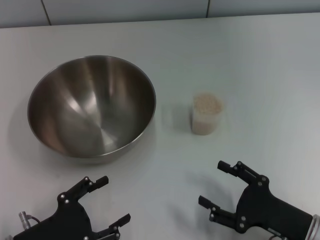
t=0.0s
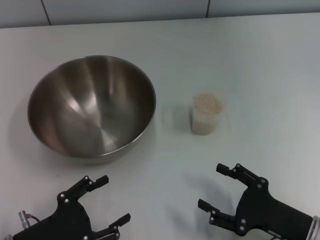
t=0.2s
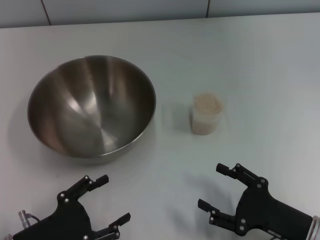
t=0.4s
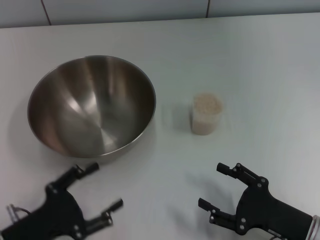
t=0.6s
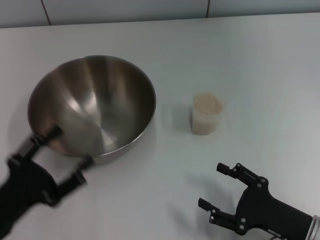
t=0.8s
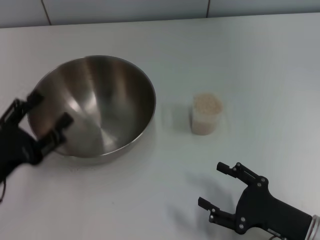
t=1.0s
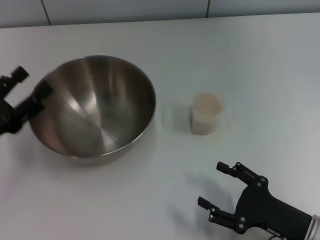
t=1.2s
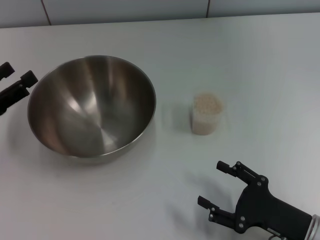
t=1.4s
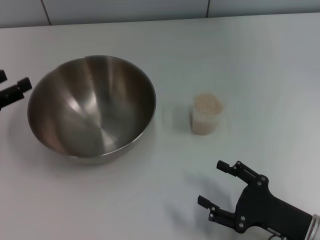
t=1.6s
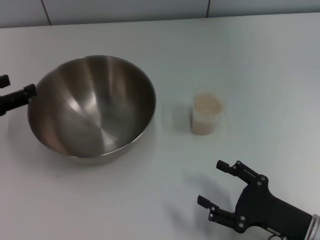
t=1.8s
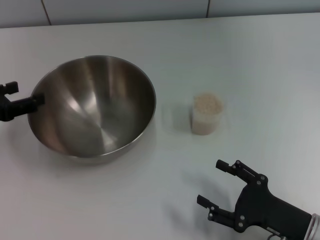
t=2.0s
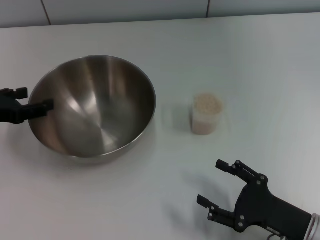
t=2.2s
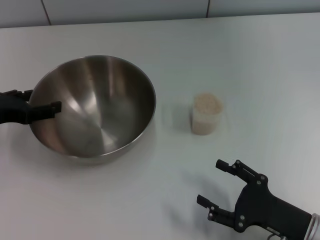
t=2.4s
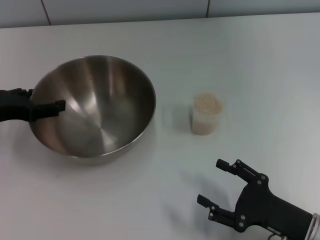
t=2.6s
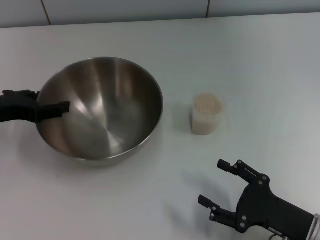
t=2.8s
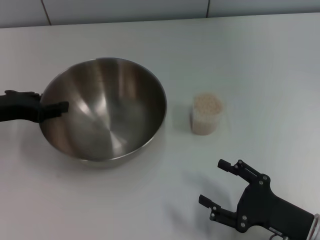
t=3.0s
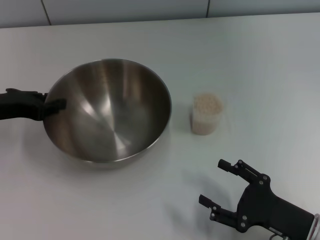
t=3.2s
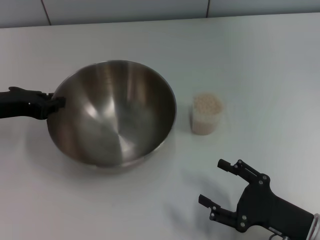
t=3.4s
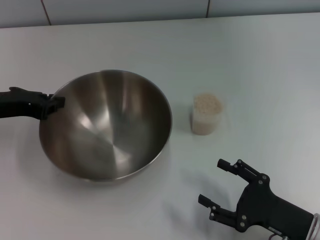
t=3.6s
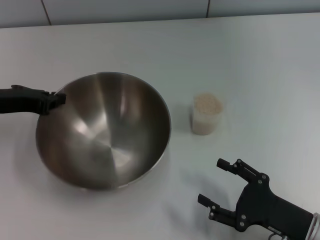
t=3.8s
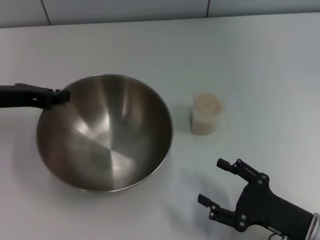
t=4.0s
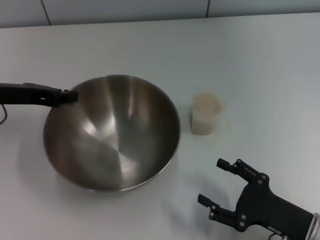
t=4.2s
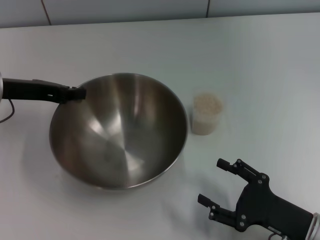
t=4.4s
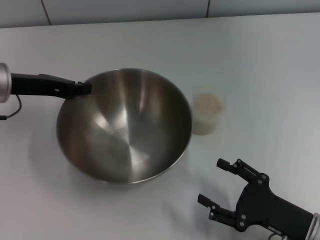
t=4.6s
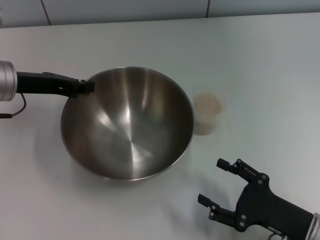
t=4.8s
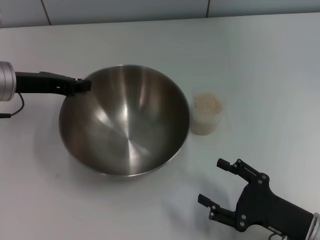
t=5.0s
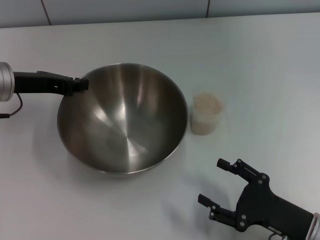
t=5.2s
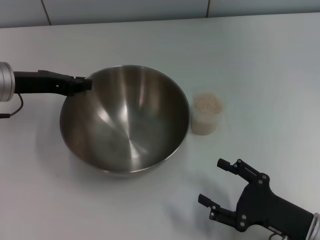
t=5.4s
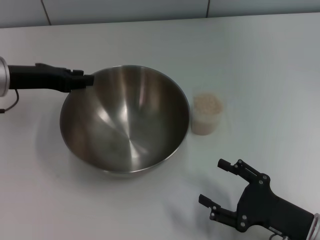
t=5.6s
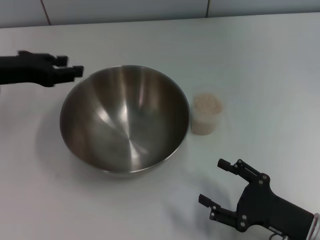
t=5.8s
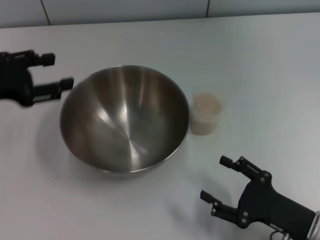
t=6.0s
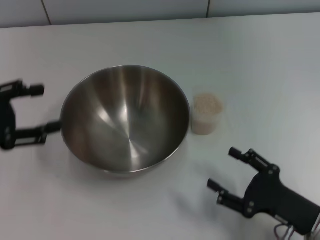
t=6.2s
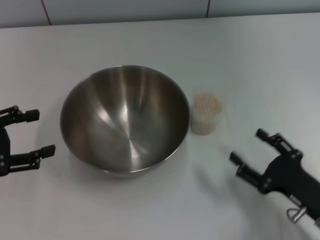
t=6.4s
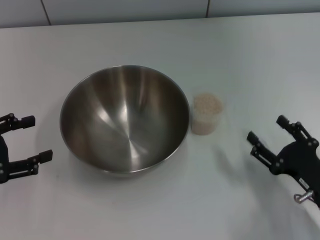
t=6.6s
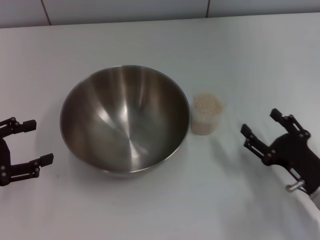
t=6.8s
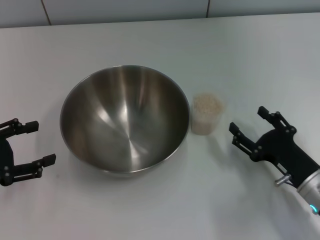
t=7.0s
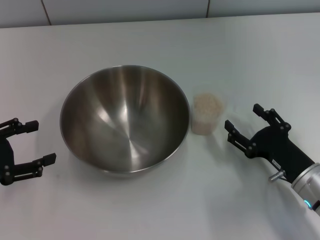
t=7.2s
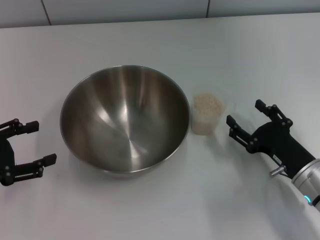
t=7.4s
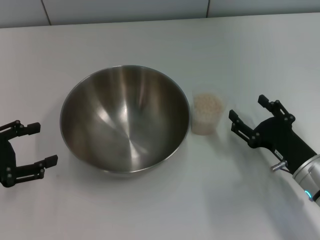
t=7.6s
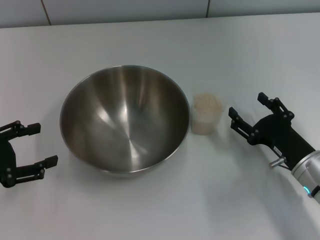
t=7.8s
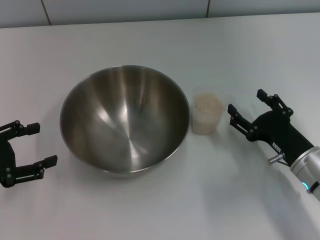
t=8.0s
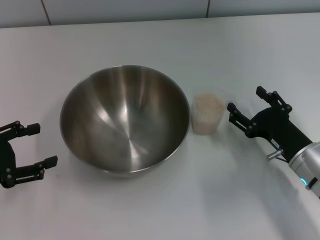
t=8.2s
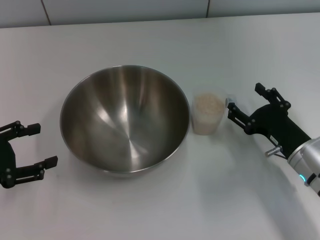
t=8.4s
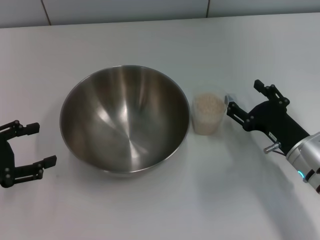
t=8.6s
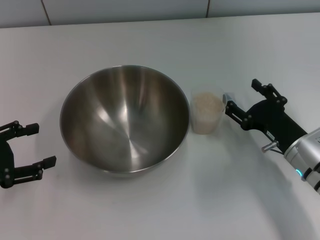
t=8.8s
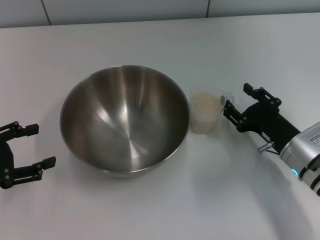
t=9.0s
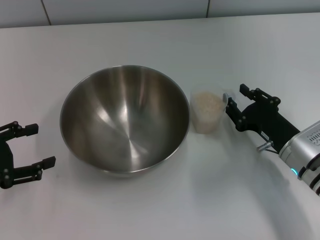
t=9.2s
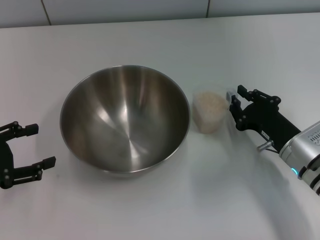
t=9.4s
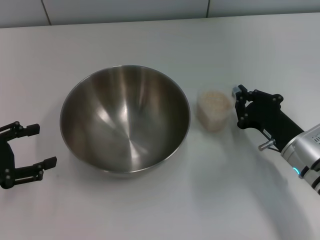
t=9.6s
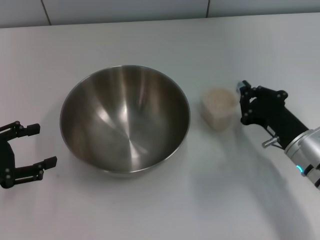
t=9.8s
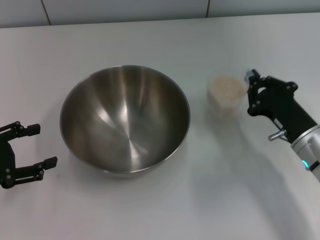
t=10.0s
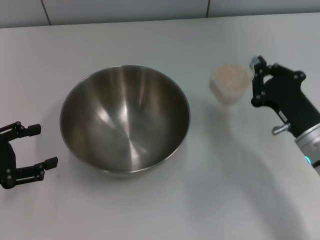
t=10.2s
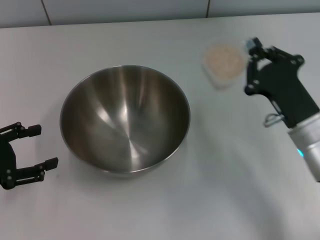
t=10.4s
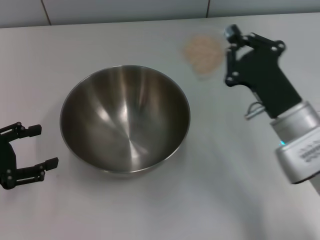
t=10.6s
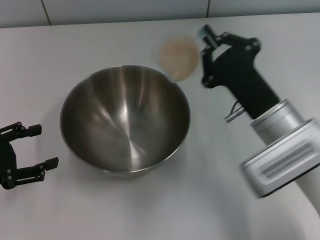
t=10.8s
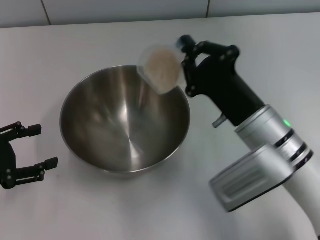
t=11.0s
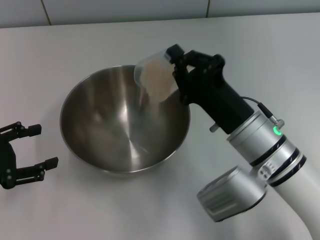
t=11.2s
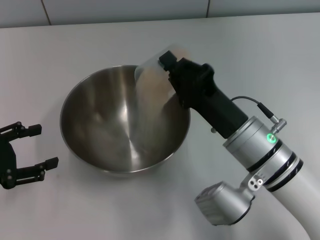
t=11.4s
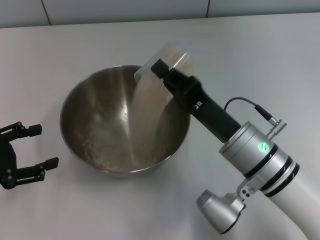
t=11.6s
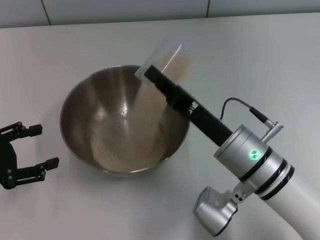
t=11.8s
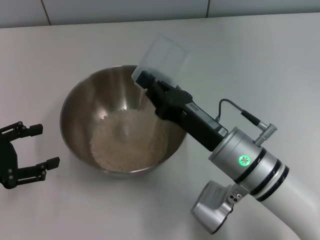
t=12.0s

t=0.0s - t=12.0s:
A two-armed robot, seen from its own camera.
Task of the whole recording: Place the bowl in the middle of the table with one hand and pour the rice from the grain cup into it with the other hand.
Step, t=0.0s - t=3.8s: Pick up the bowl with the left gripper.
Step, t=4.0s - t=5.8s: Place the bowl in the center of view with the left gripper.
Step, t=6.0s - t=10.2s: Pick up the cup with rice in it with the right gripper.
t=0.0s - t=1.6s: The left gripper is displaced forward, upward and to the left by about 20 cm.
t=1.6s - t=3.0s: The left gripper shifts roughly 5 cm to the right.
t=3.0s - t=4.4s: The left gripper ends up roughly 5 cm from where it was, and closes up.
t=4.4s - t=6.0s: The left gripper heads backward, covering roughly 5 cm, and opens.
t=6.0s - t=7.6s: The right gripper heads forward, covering some 10 cm. Meanwhile the left gripper shifts some 10 cm downward and backward, and opens up.
t=7.6s - t=9.0s: The grippers make only small movements.
t=9.0s - t=10.4s: The right gripper is displaced upward by roughly 5 cm, and closes.
t=10.4s - t=12.0s: The right gripper is displaced to the left by approximately 10 cm.

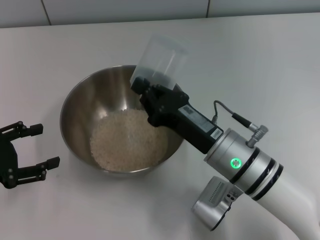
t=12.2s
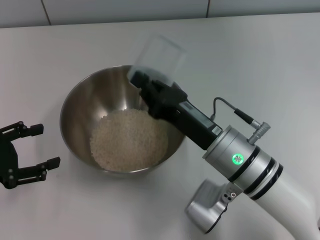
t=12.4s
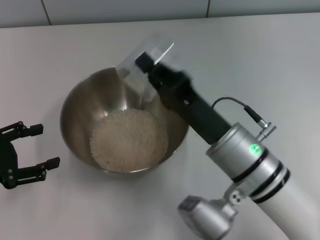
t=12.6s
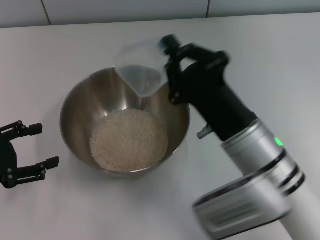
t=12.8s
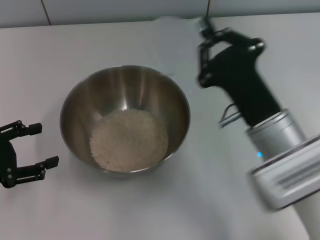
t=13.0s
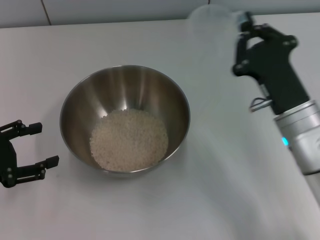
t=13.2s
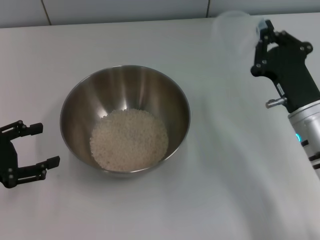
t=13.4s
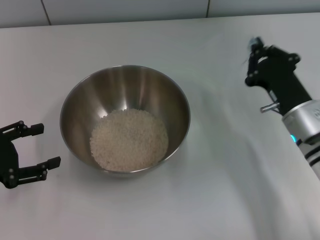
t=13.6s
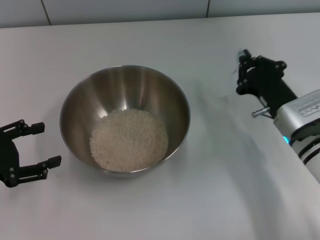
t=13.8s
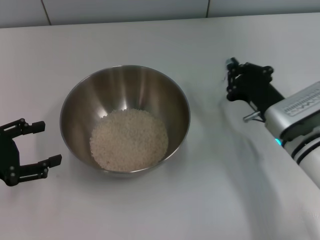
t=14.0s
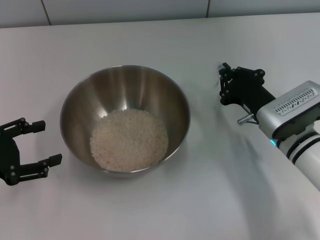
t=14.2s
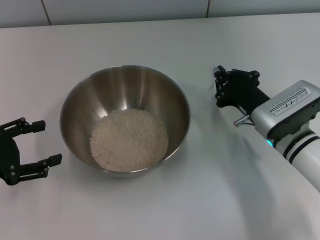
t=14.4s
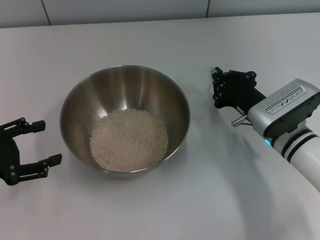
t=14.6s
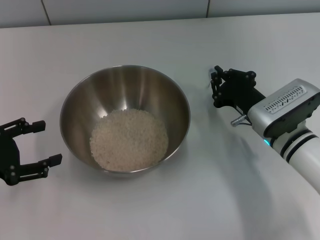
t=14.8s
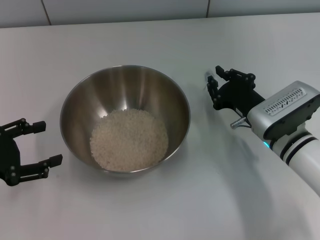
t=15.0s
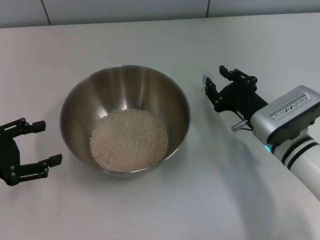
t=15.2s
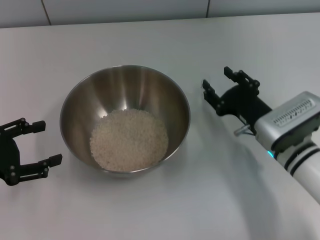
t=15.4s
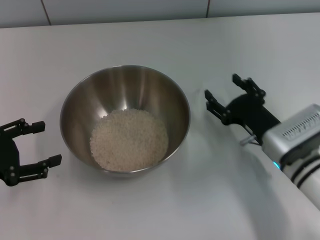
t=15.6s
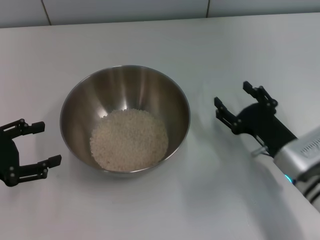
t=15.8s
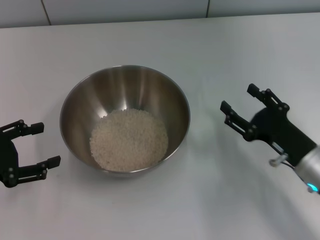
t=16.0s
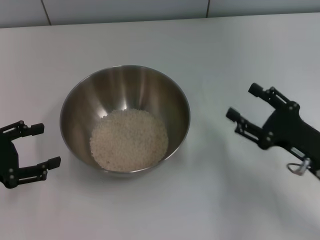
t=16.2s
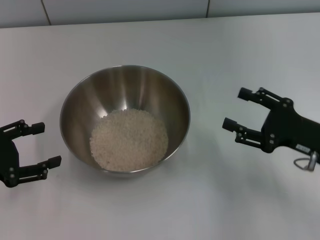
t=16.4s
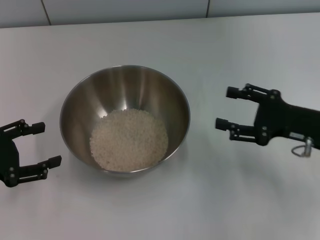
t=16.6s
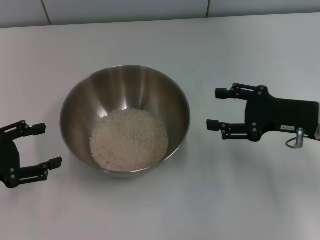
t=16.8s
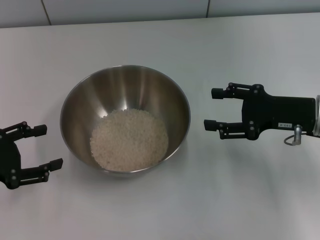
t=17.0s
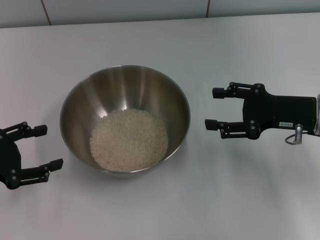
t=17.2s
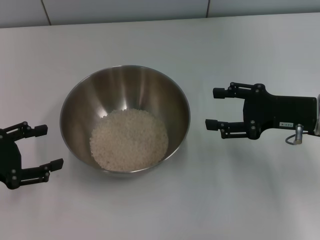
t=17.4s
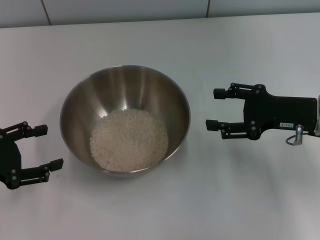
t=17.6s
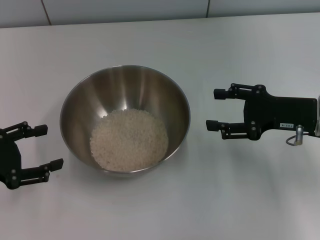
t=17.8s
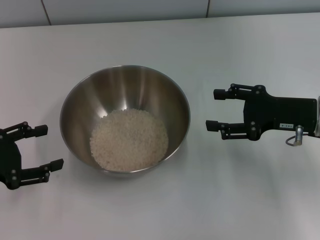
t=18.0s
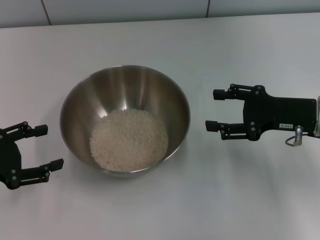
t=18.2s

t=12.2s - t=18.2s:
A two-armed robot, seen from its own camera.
Task of the whole recording: Place the bowl in the middle of the table with one hand and pour the rice from the grain cup into it with the other hand.
Step, t=13.2s - t=15.6s: Place the cup on the table with the right gripper.
t=12.2s - t=13.8s: The right gripper shifts some 10 cm to the right and forward.
t=13.8s - t=15.2s: The grippers stay close to where they were, moving slightly.
t=15.2s - t=16.6s: The right gripper shifts some 10 cm to the right and upward, and opens.
t=16.6s - t=18.2s: The grippers stay close to where they were, moving slightly.

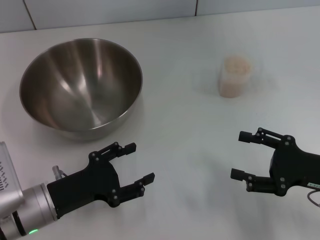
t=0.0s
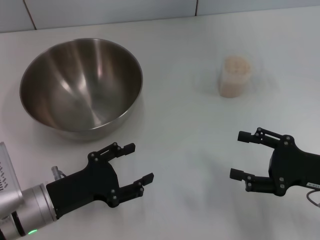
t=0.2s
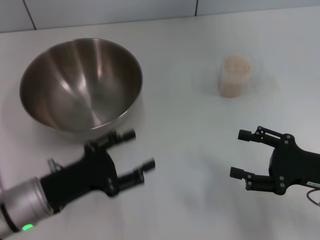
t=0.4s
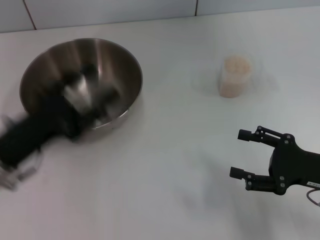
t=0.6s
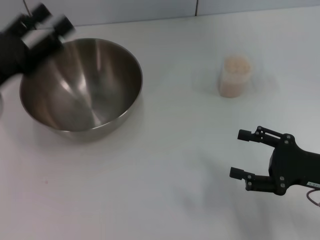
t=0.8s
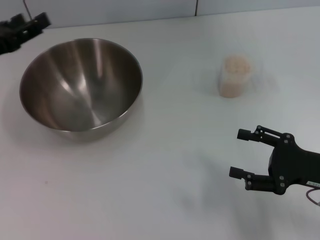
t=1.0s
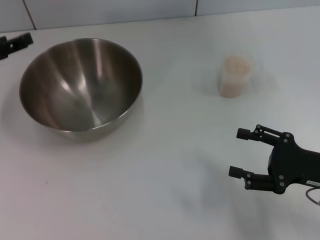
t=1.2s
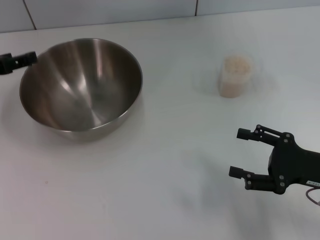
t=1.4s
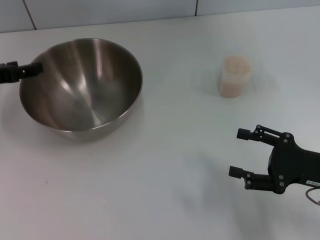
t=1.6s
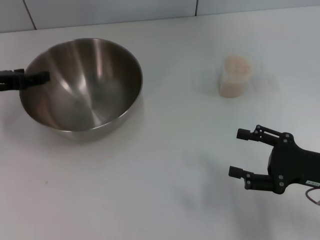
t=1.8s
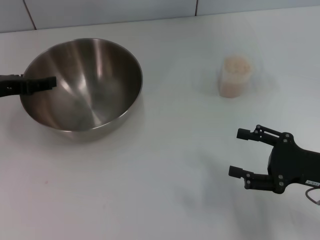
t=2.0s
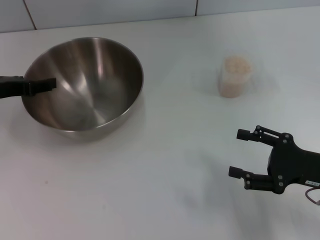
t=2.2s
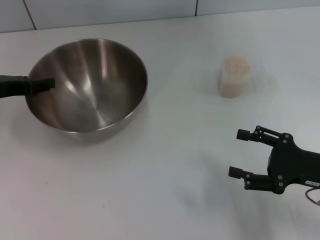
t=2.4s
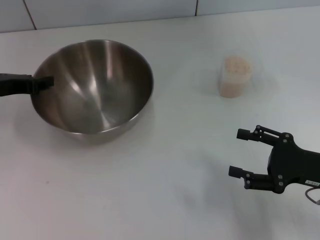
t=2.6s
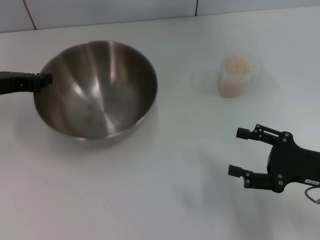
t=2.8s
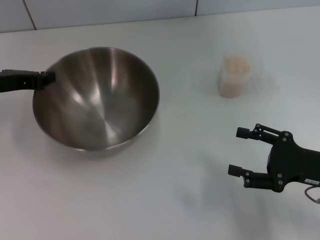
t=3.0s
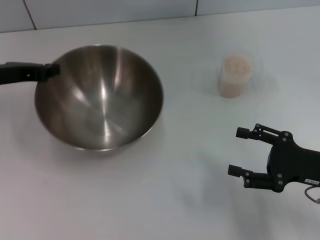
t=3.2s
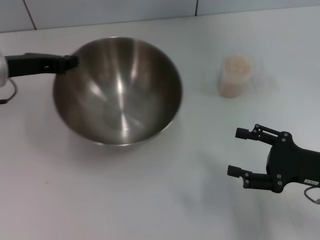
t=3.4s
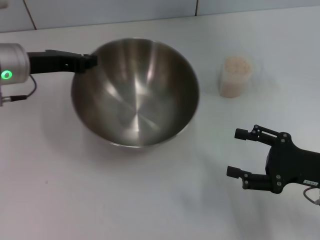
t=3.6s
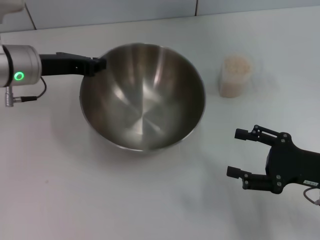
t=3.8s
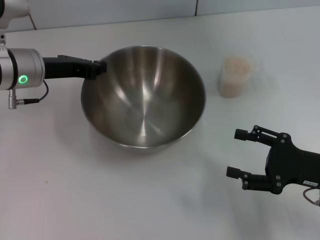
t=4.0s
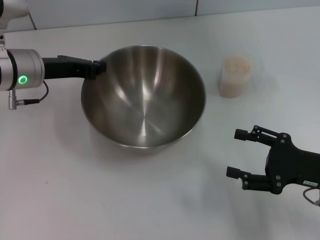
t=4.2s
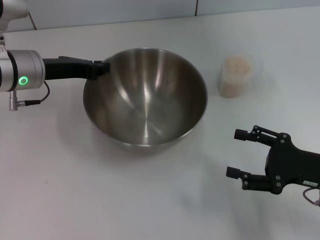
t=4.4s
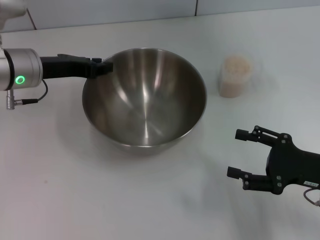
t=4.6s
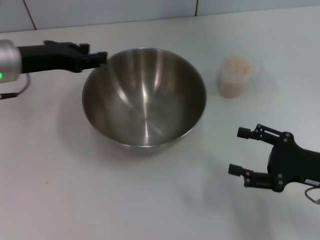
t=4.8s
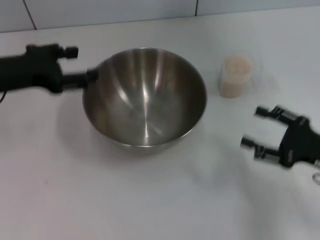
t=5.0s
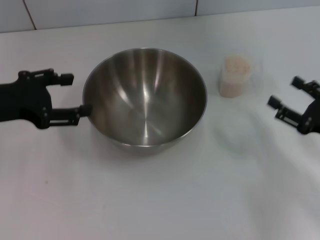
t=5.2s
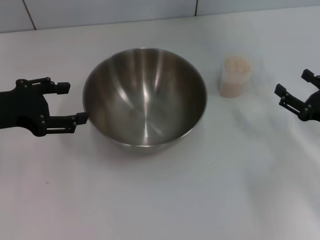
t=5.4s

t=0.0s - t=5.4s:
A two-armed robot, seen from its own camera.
Task of the whole recording: Place the bowl in the middle of the table with one hand and pour the rice from the grain cup into it with the other hand.
Step, t=0.0s - t=2.8s: Pick up the bowl with the left gripper.
Step, t=3.0s - t=5.0s: Place the bowl in the center of view with the left gripper.
t=0.0s - t=1.4s: The left gripper goes approximately 20 cm forward, upward and to the left.
t=1.4s - t=2.8s: The left gripper closes its fingers.
t=2.8s - t=4.0s: The left gripper heads to the right, covering some 10 cm.
t=4.0s - t=5.4s: The right gripper shifts by approximately 5 cm, while the left gripper heads backward and to the left, covering approximately 10 cm, and opens its fingers.
